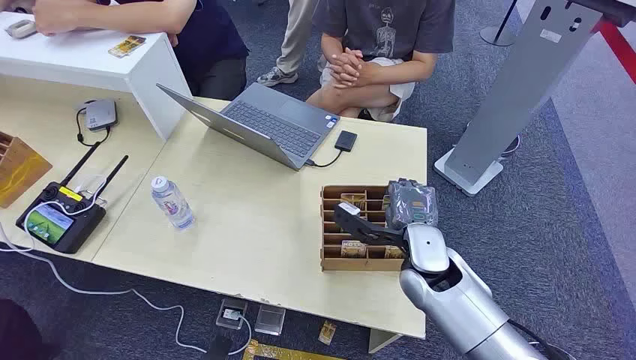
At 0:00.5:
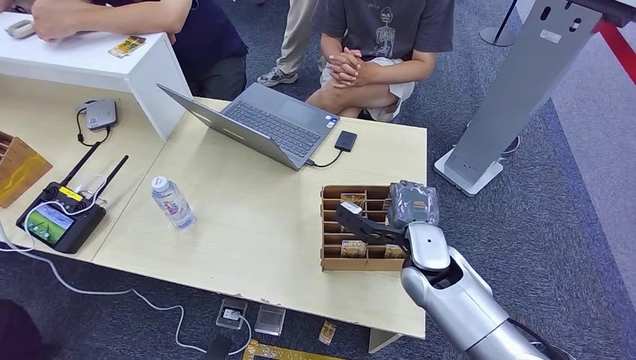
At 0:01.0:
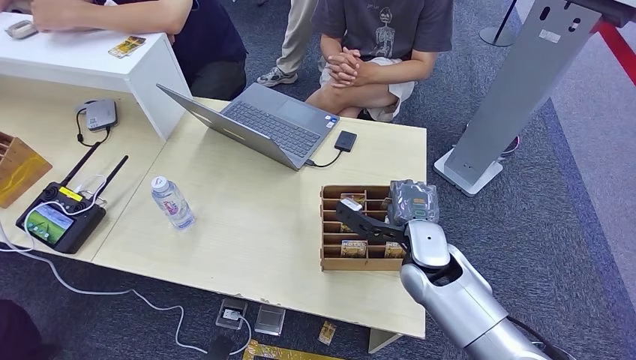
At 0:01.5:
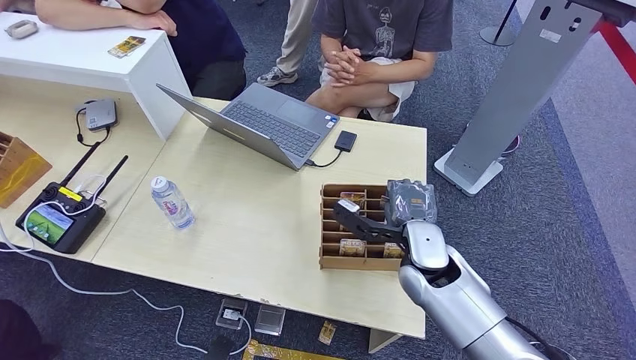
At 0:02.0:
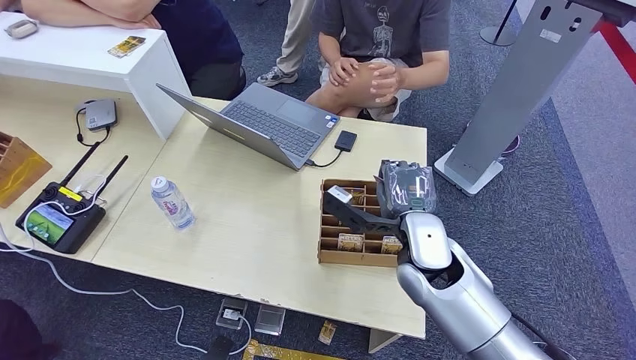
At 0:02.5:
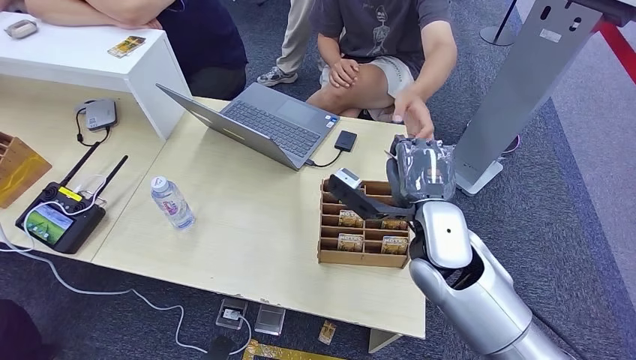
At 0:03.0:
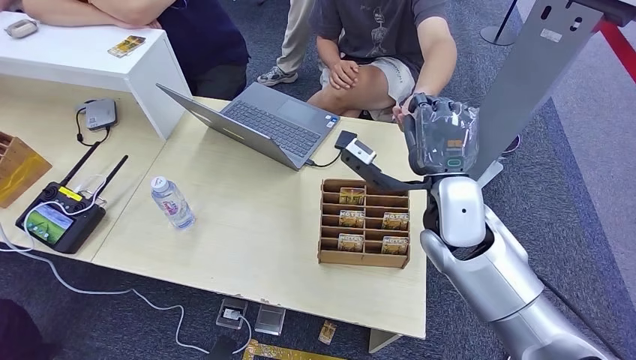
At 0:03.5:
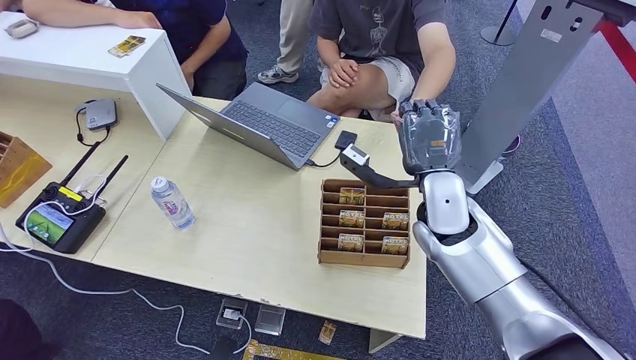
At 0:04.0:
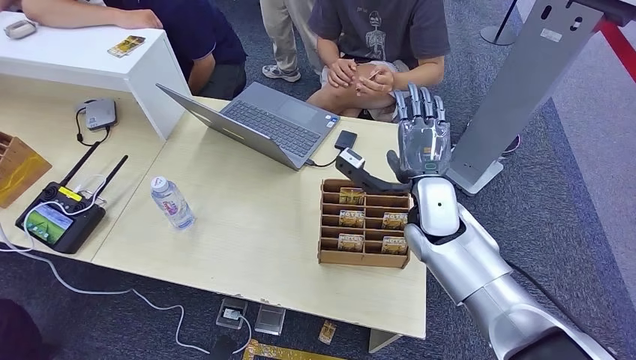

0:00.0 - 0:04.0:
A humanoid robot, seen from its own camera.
Step, 0:00.0 - 0:02.5: Pick up the room card from the card holder.
Step, 0:03.0 - 0:04.0: Hand the room card to the target.
0:02.0 - 0:04.0: The right hand heads forward, covering approximately 5 cm.

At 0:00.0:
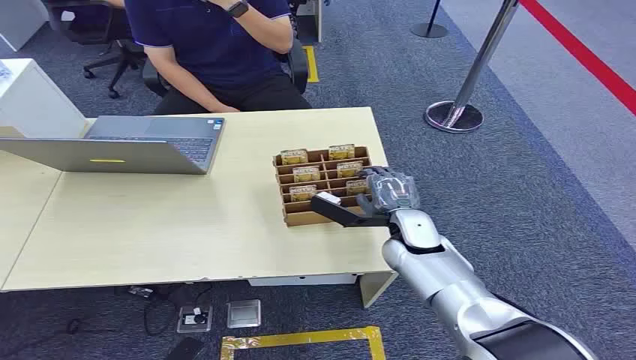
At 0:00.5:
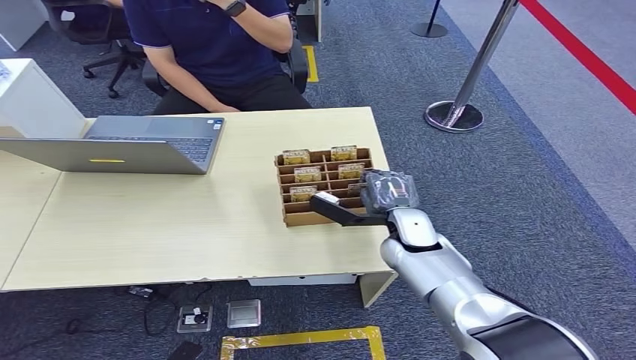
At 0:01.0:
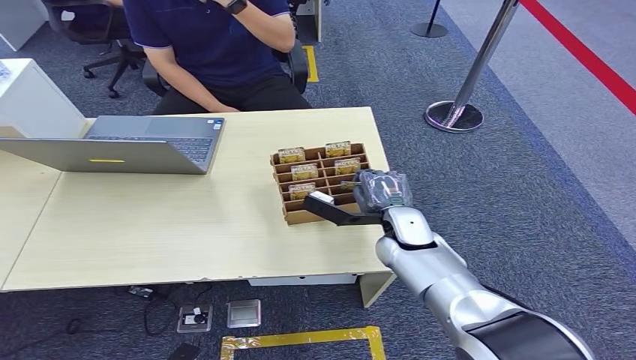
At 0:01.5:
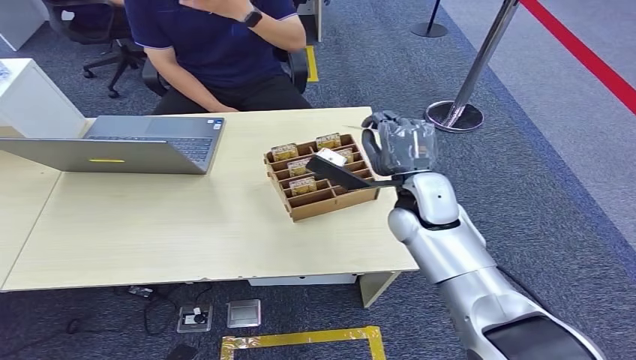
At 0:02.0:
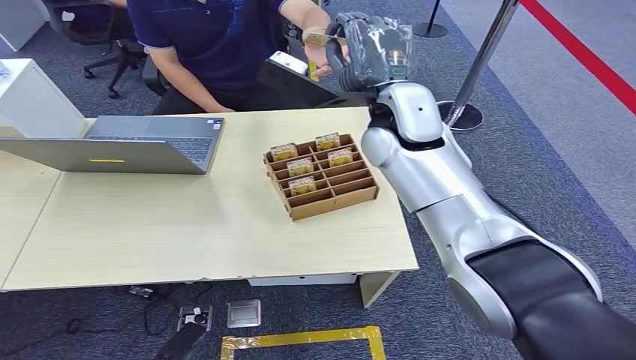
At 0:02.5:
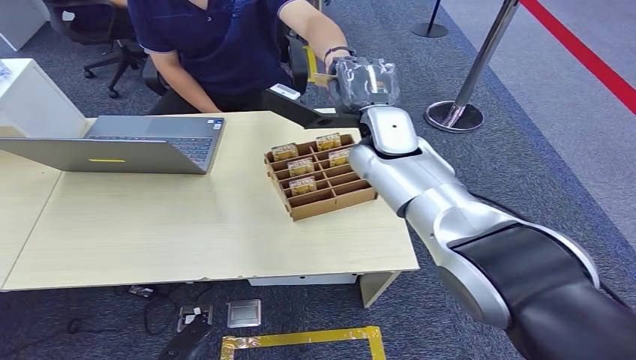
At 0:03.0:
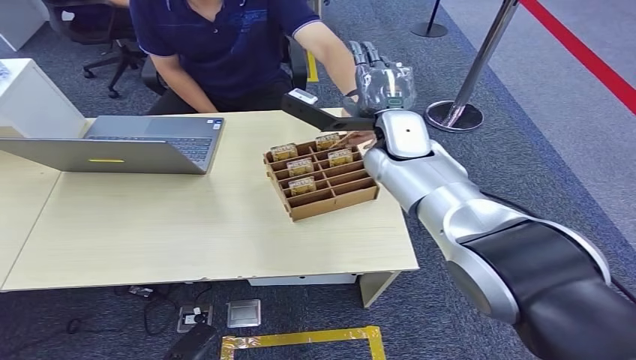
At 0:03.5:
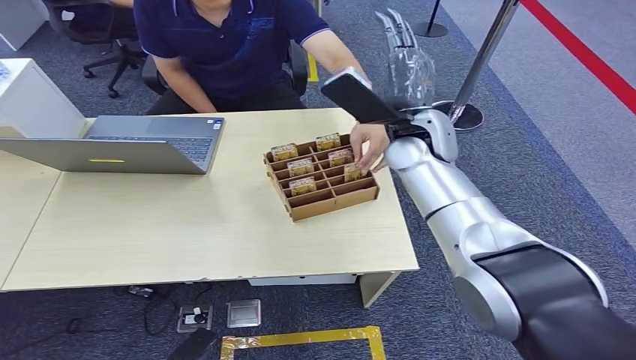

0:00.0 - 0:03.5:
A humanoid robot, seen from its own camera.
Step, 0:00.0 - 0:01.0: Pick up the room card from the card holder.
Step, 0:02.0 - 0:03.5: Hand the room card to the target.
0:02.0 - 0:03.5: The right hand goes roughly 5 cm downward.
